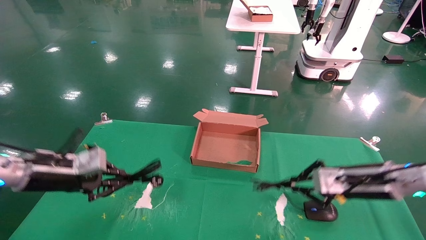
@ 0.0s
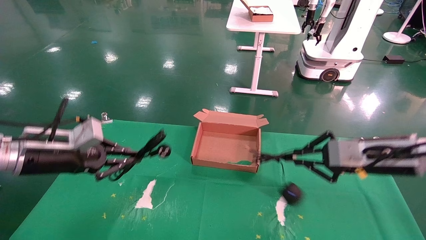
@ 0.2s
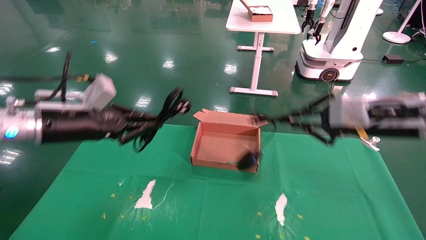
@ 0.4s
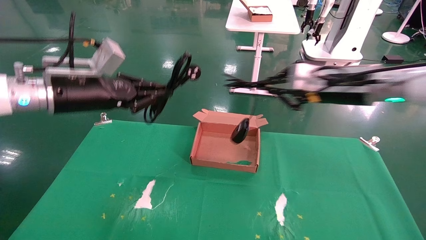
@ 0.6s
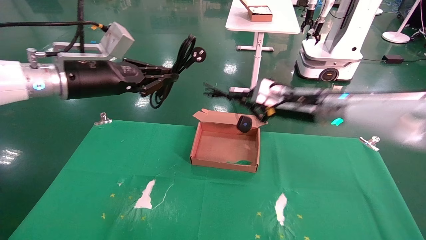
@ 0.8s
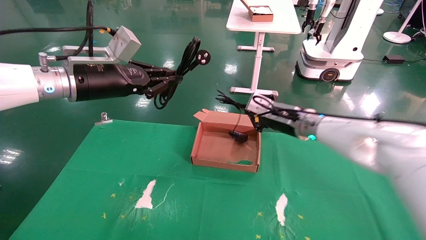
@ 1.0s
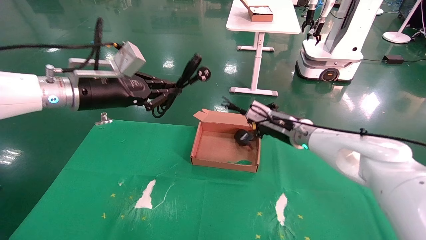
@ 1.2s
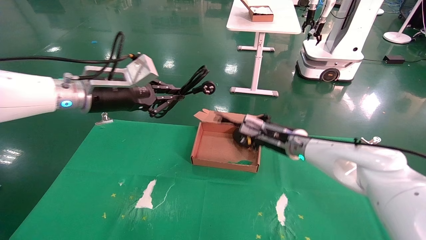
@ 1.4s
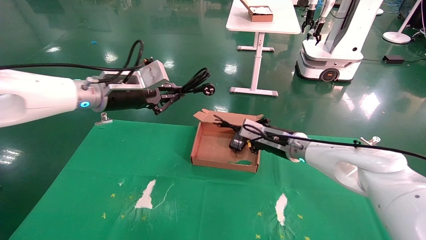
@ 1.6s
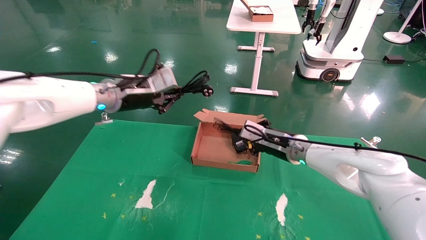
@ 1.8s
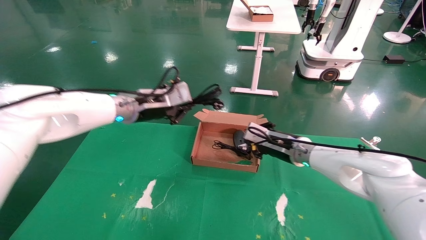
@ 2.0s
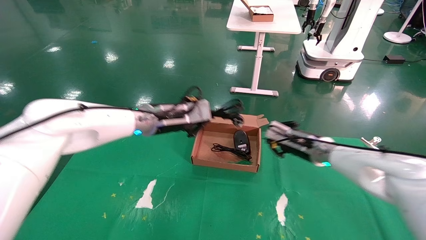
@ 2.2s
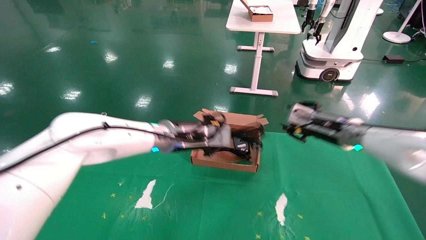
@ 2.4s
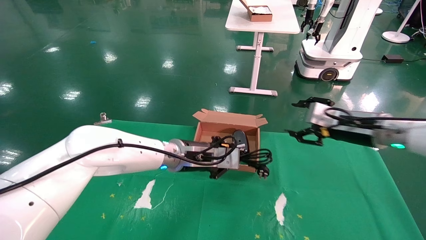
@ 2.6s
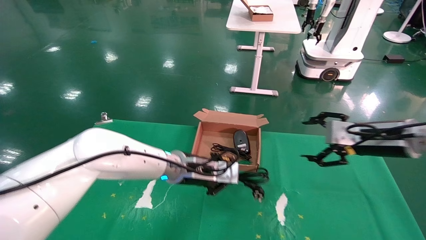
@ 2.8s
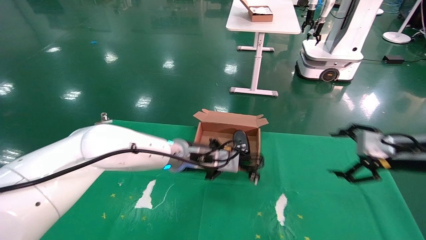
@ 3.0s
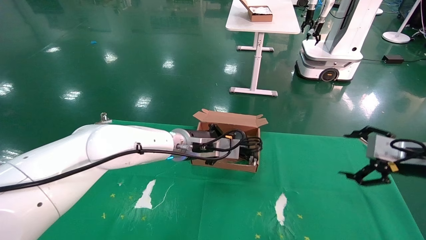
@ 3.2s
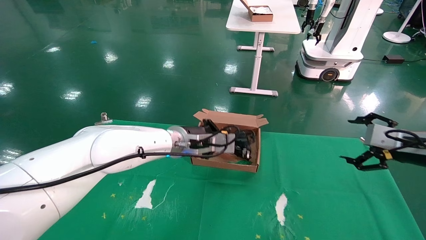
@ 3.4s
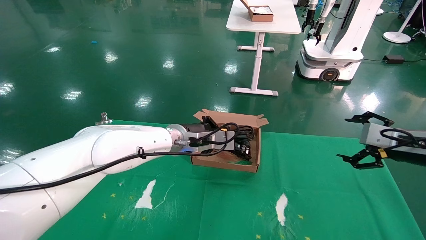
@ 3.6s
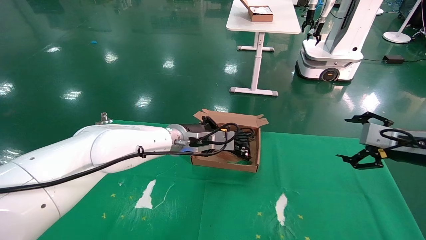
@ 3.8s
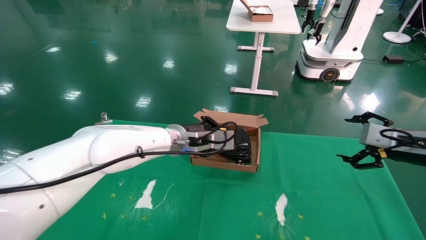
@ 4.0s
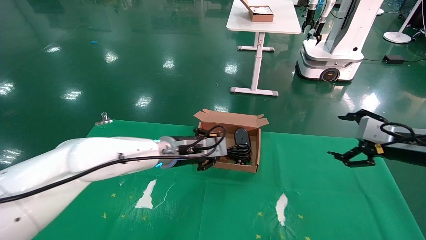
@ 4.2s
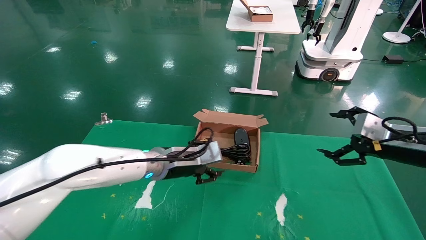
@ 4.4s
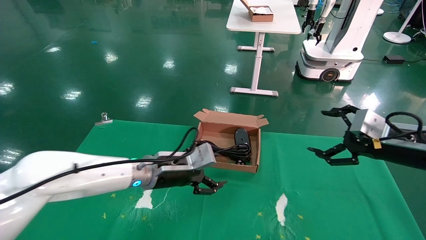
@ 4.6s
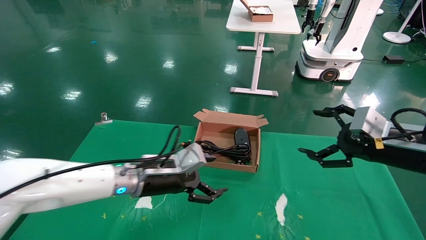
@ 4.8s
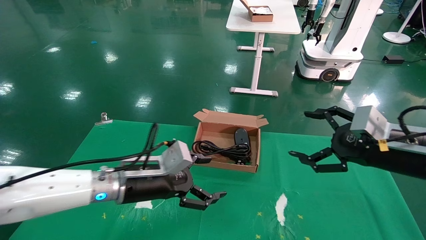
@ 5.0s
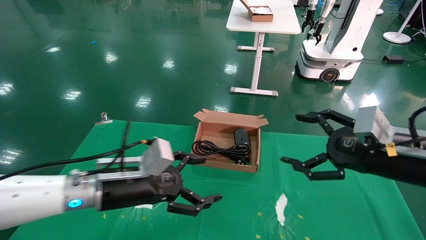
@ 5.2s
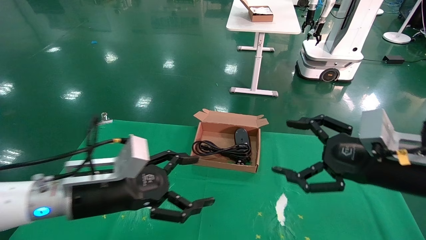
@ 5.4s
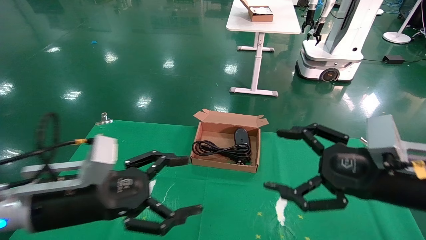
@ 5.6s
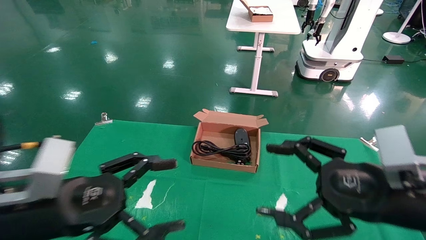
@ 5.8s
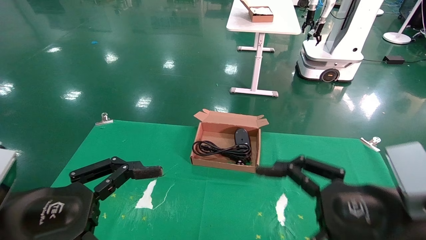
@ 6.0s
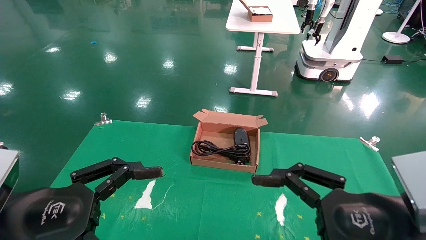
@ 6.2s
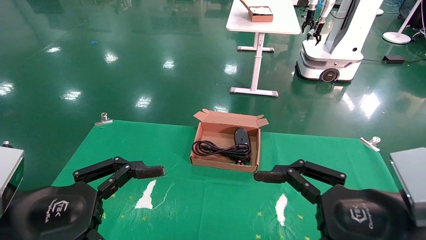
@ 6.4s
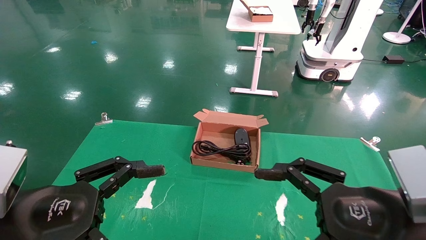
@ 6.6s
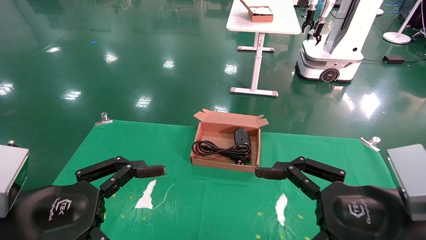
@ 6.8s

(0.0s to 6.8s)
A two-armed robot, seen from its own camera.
Step, 0.0s - 4.2s: Place the mouse and power cord into the box.
0.0s - 1.4s: The left gripper heads upward and to the right, covering approximately 20 cm, while the right gripper heads to the left and forward, covering some 20 cm.
1.4s - 2.8s: The right gripper shifts about 20 cm to the right and backward, and opens; the left gripper heads to the right and downward, covering approximately 20 cm.
2.8s - 4.0s: The right gripper moves to the right, roughly 5 cm.
4.0s - 5.4s: The left gripper goes approximately 20 cm backward and to the left, and opens up. Meanwhile the right gripper heads to the left and backward, covering roughly 15 cm.
5.4s - 6.8s: The right gripper moves backward, approximately 10 cm. Meanwhile the left gripper travels backward and to the left by approximately 10 cm.

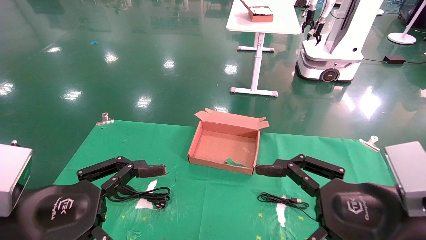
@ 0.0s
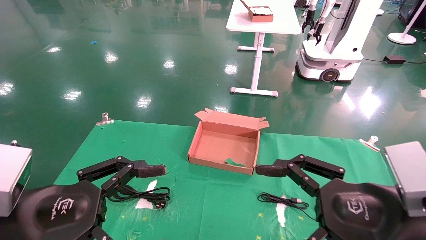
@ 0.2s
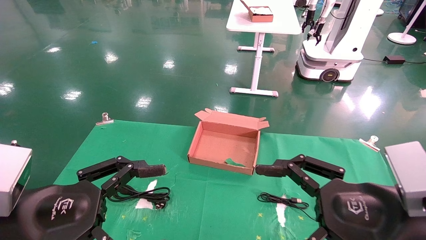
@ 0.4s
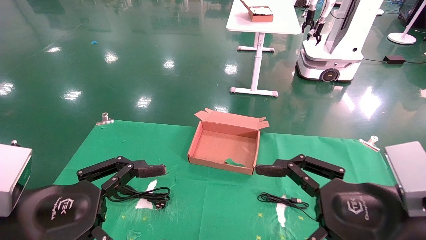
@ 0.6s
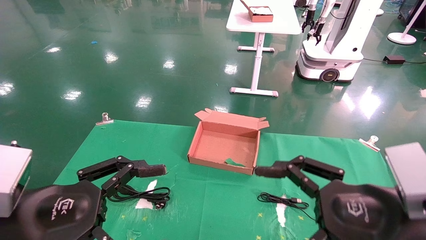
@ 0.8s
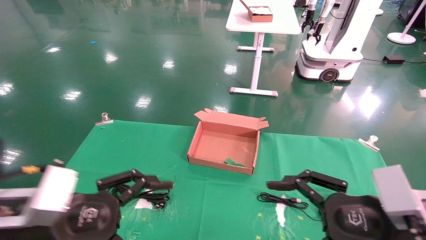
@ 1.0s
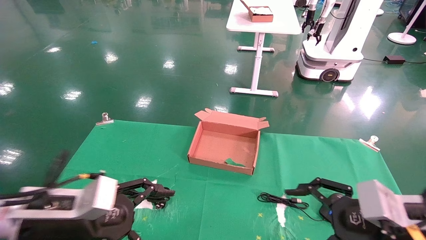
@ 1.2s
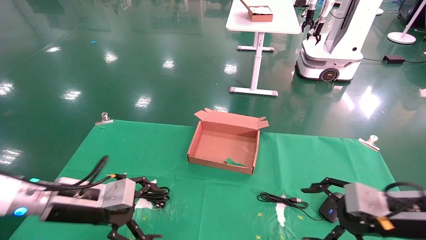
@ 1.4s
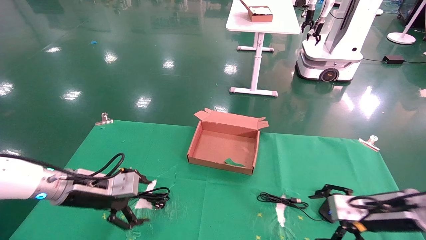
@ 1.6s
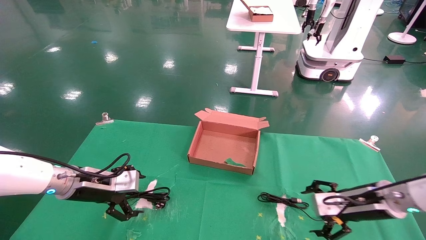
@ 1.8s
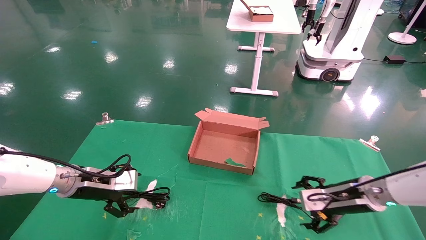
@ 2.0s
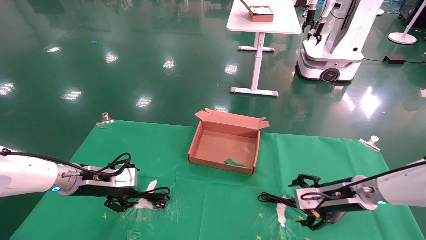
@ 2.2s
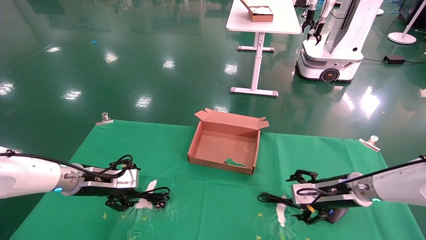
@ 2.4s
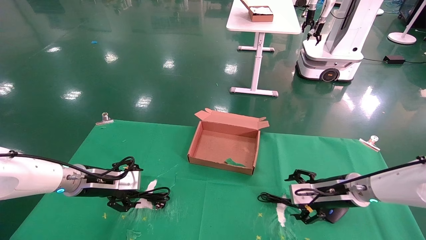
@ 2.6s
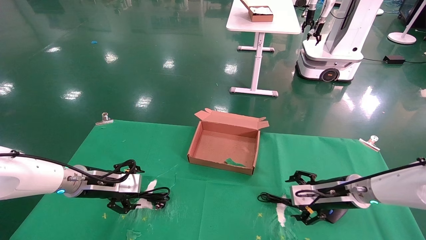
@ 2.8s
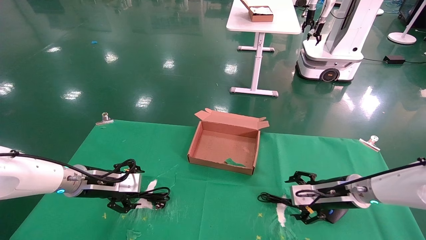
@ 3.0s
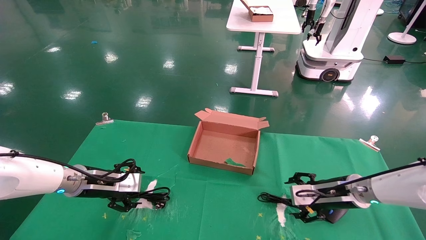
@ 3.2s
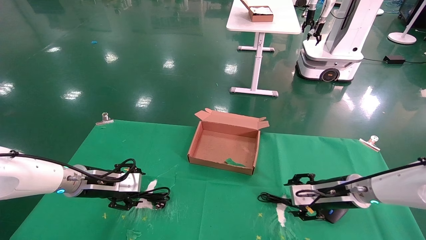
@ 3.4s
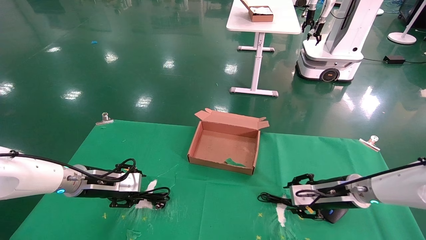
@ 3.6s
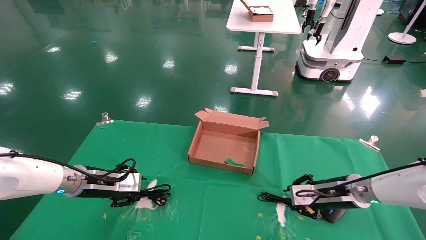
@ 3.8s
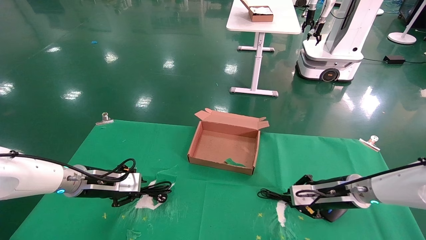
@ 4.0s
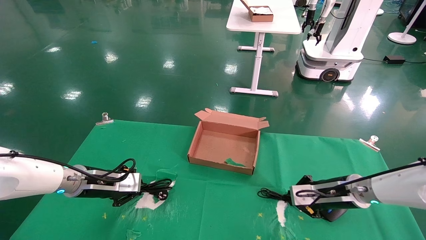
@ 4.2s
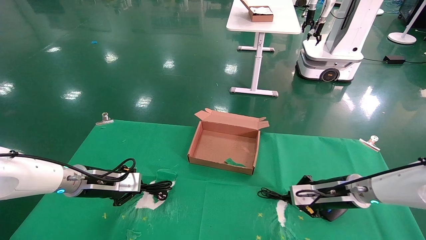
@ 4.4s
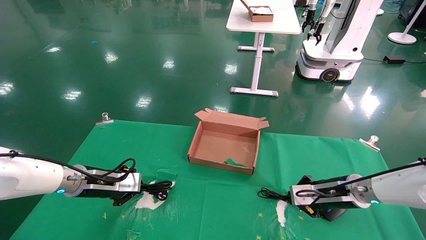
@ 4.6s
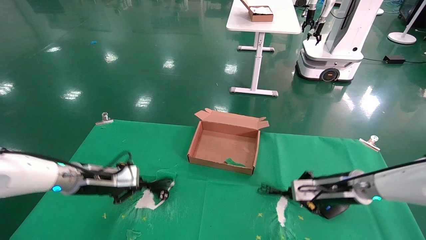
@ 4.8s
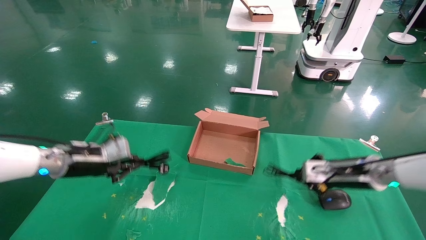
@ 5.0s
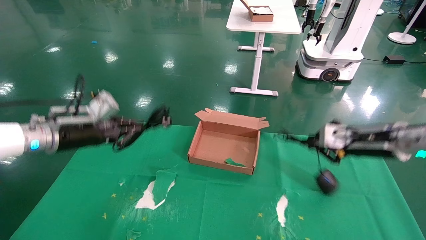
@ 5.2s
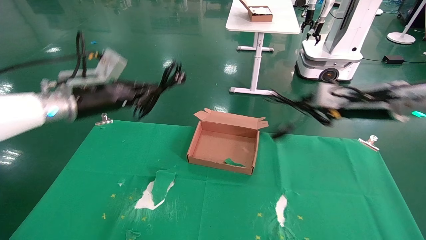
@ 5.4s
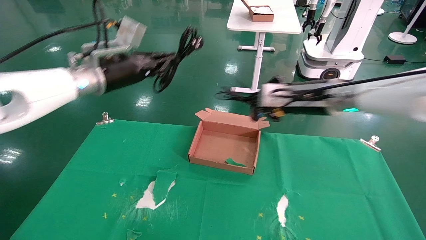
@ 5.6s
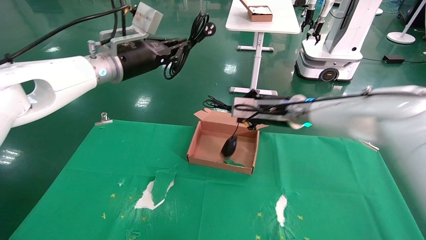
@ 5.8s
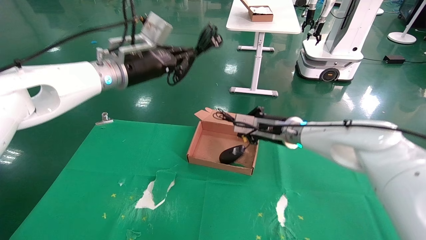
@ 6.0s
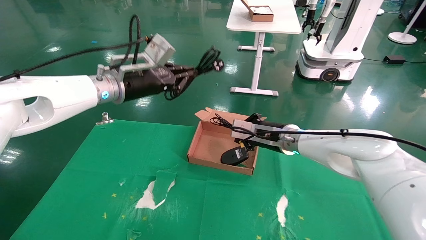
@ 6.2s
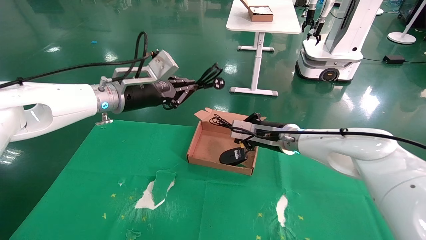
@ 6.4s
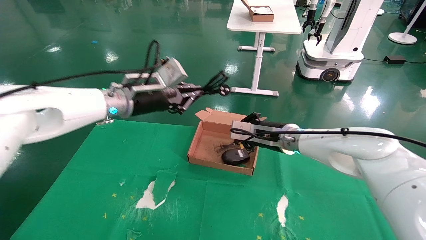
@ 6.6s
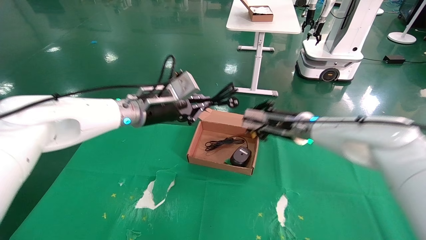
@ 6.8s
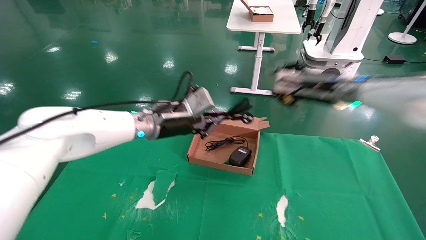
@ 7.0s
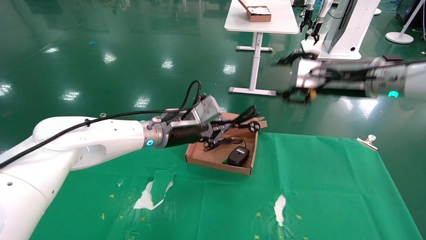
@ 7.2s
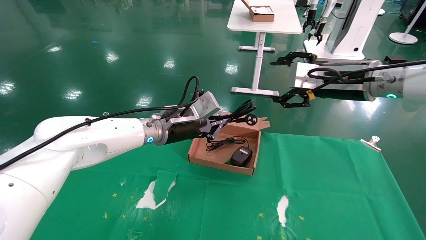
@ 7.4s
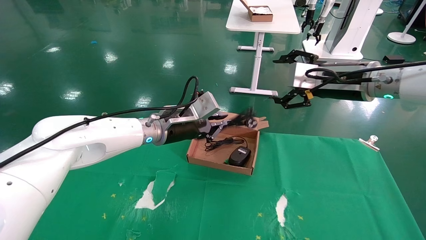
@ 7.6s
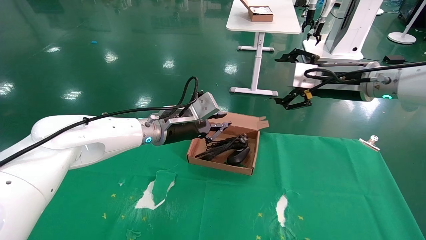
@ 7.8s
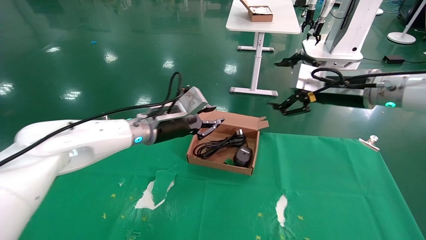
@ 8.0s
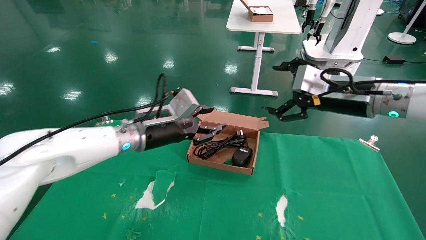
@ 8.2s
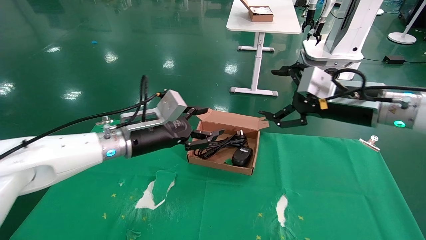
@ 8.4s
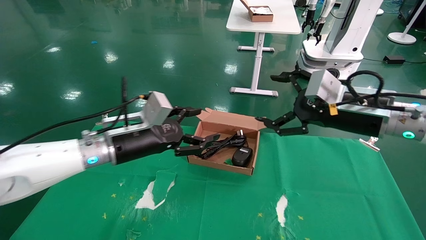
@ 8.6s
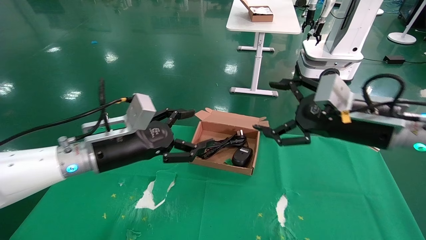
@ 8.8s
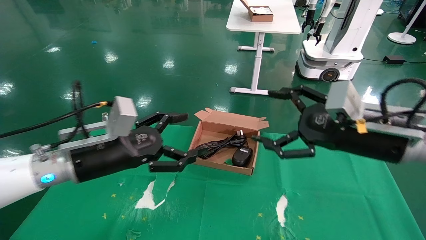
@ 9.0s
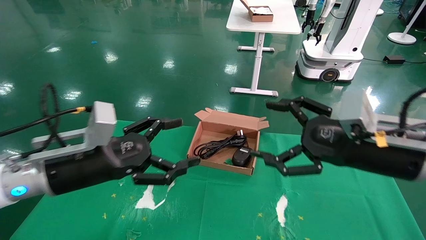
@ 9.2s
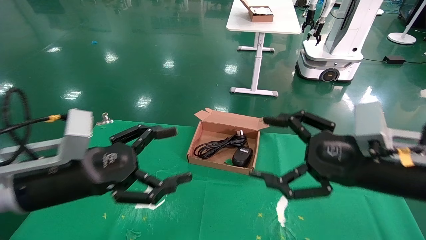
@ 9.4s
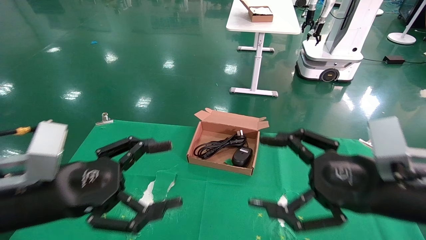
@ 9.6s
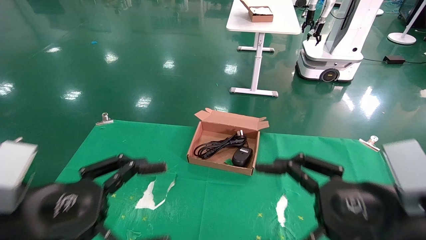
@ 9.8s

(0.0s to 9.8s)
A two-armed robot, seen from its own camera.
Step, 1.2s - 4.8s: Grab and lift both the mouse and power cord from the accessory packaging area at the same time.
Step, 5.0s - 7.6s: Place the mouse and power cord into the box.
0.0s - 1.4s: The right gripper is displaced forward, to the right and downward by some 15 cm. Meanwhile the left gripper shifts about 15 cm forward.
1.4s - 2.8s: The two grippers go some 10 cm forward.
2.8s - 4.2s: The left gripper closes. The right gripper closes.
4.2s - 5.6s: Both grippers move upward, approximately 20 cm.
5.6s - 7.0s: The right gripper goes downward and returns, approximately 10 cm each way, while the left gripper travels to the right and downward by about 15 cm.
7.0s - 8.4s: The left gripper shifts by approximately 5 cm, and opens up; the right gripper goes roughly 10 cm backward, and opens its fingers.
8.4s - 9.8s: The left gripper shifts approximately 25 cm backward and to the left, and opens its fingers. The right gripper travels backward and downward by some 20 cm.
